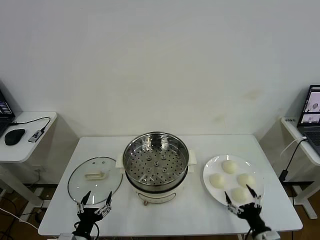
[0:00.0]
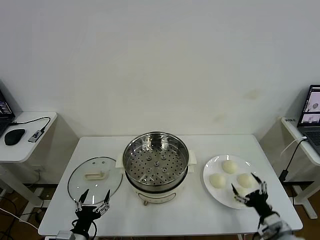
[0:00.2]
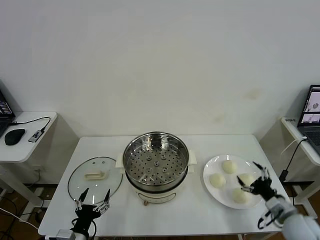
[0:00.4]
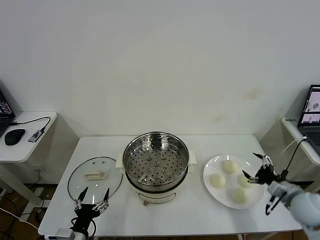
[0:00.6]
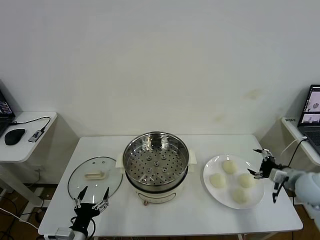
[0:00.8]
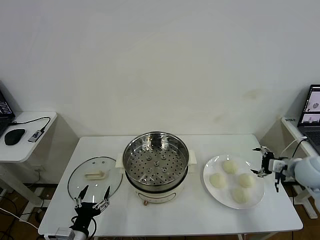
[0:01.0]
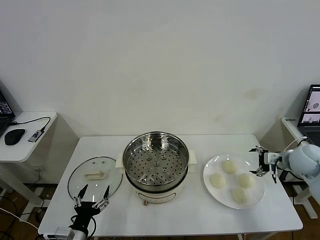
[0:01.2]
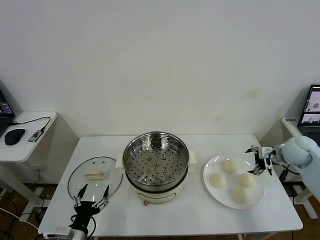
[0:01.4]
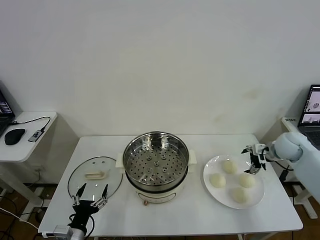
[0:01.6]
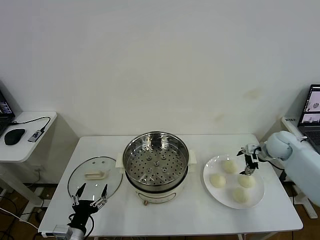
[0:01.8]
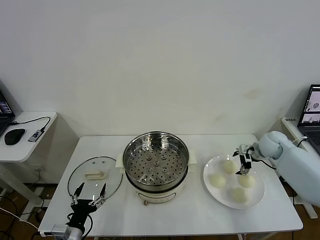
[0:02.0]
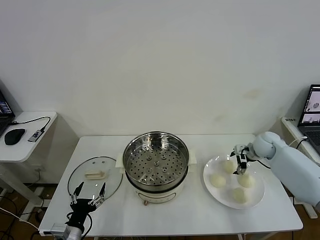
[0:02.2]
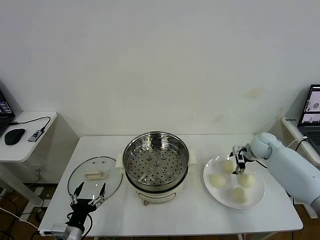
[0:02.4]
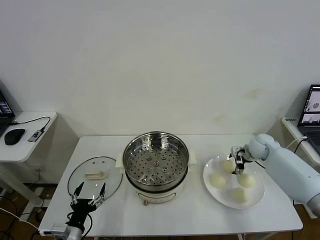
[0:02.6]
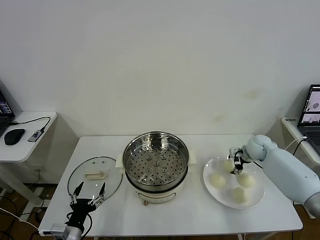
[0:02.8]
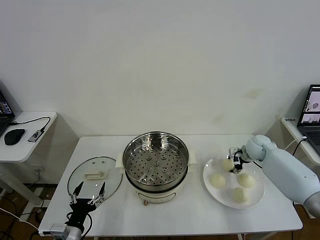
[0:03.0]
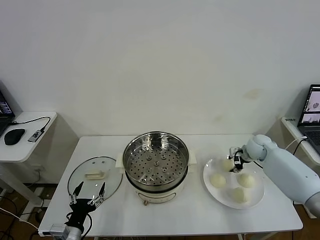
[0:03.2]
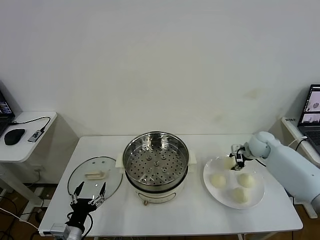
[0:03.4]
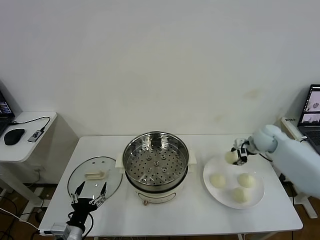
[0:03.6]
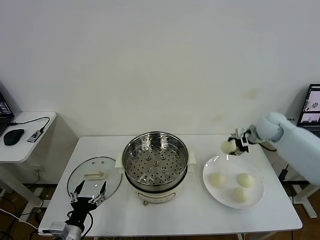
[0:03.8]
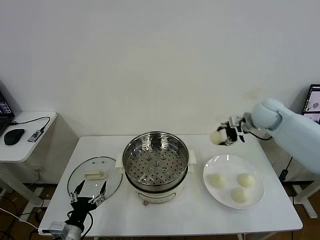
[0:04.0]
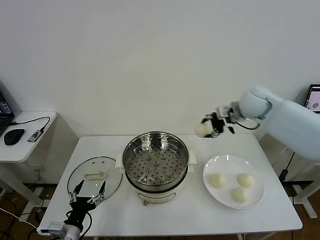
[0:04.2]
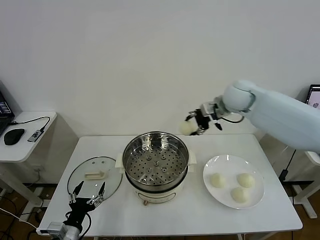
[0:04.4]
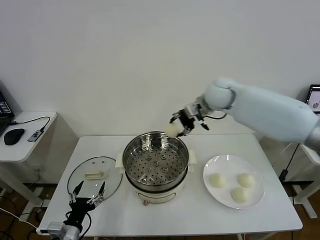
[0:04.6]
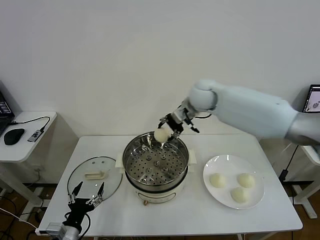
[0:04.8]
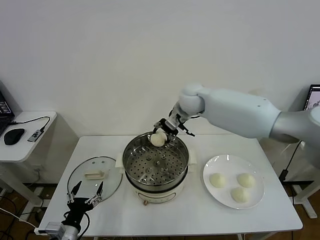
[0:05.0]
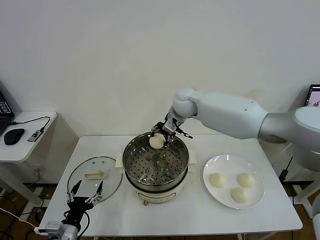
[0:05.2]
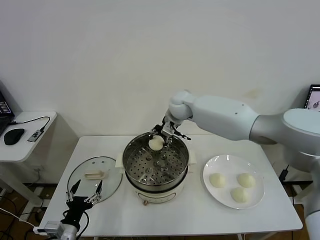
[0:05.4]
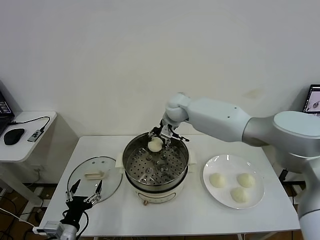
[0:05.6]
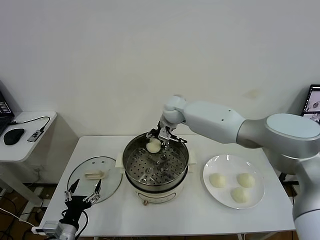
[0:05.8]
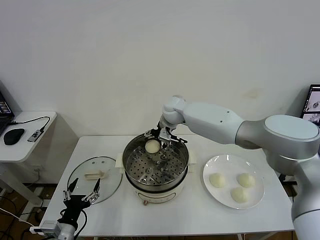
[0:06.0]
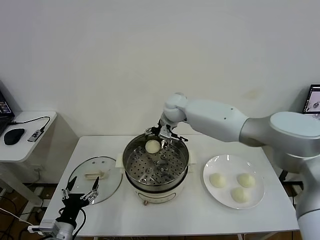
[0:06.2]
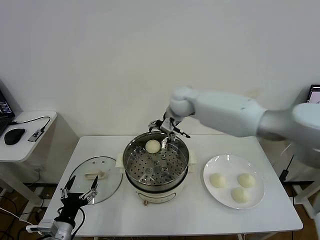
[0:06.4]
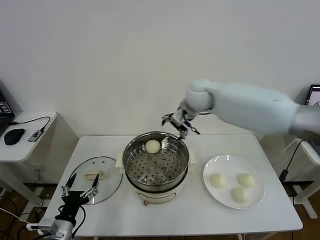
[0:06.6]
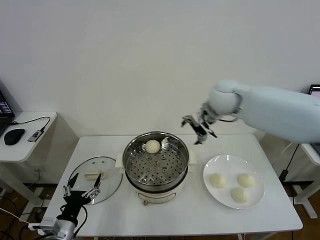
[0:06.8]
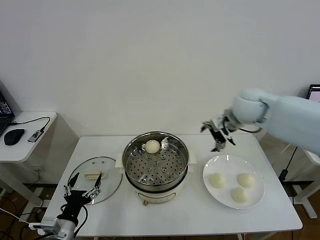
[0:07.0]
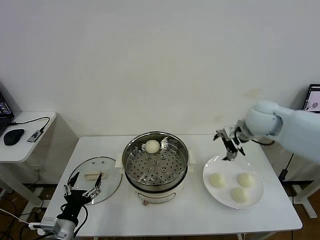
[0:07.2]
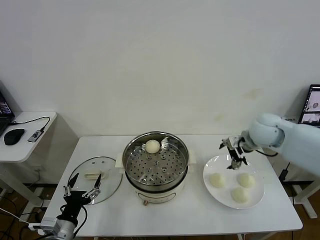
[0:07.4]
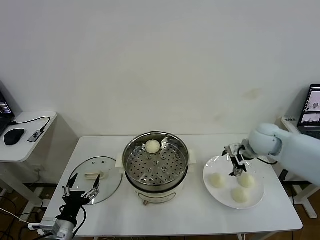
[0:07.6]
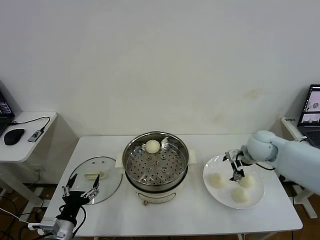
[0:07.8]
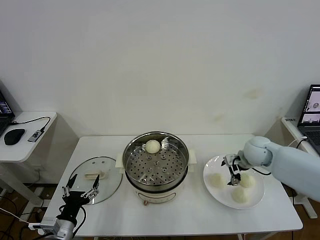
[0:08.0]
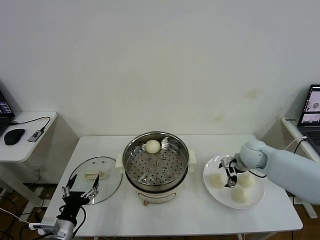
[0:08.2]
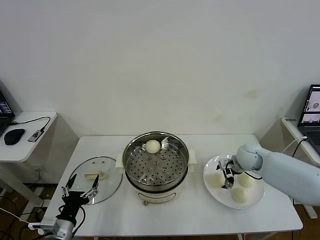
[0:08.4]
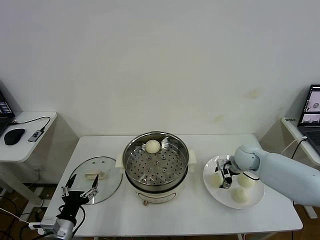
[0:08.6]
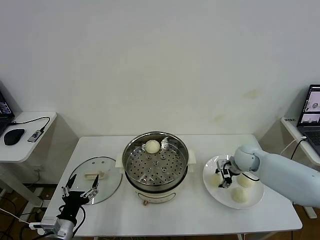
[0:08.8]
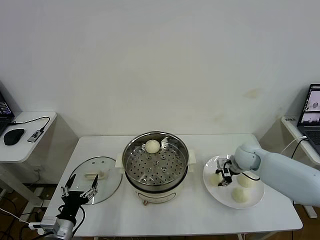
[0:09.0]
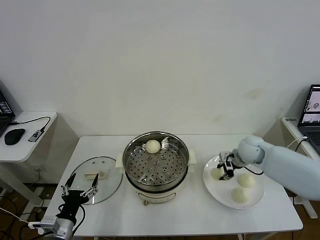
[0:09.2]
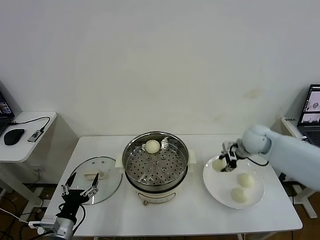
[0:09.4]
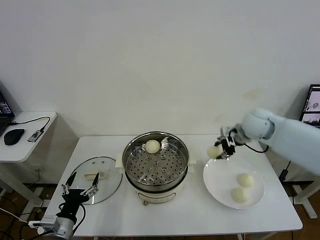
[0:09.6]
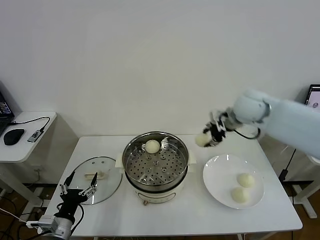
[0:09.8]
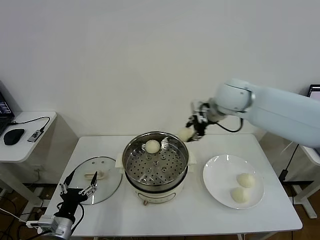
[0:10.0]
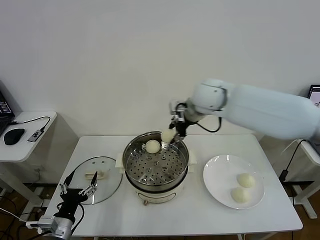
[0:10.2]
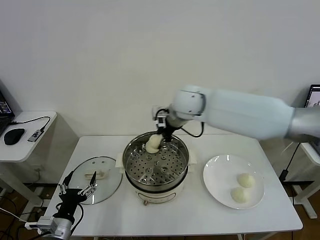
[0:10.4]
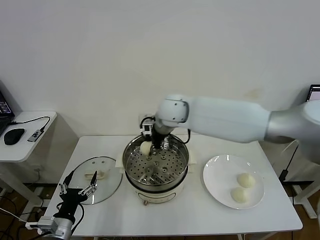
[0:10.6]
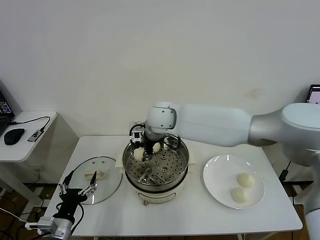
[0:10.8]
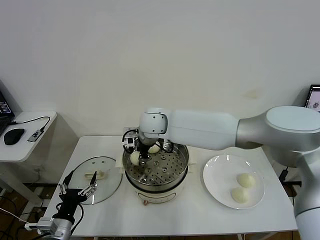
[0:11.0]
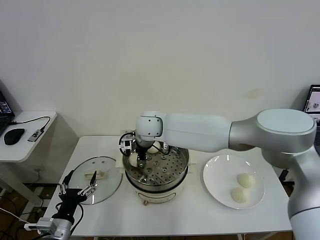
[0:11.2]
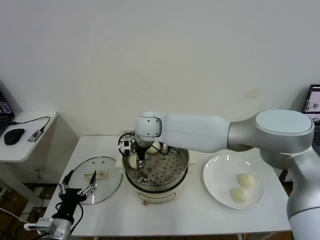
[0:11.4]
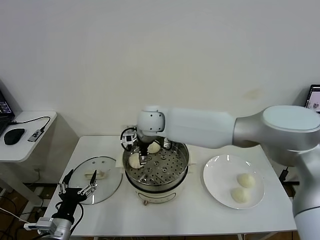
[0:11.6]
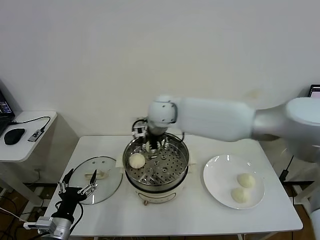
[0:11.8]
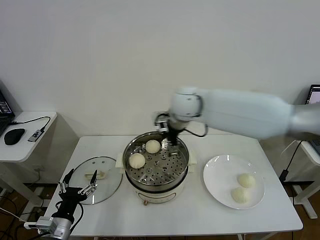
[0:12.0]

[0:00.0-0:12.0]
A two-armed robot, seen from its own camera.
Task of the whole recording: take steamed baozi put them in steamer then cover it.
Step, 0.0 to 3.2 s: Grasp the baozi in the plate with right gripper.
Step, 3.4 to 6.2 s: Place the baozi on the steamer with right gripper.
Step, 6.4 to 9.0 s: Grasp the baozi in the plate with right gripper.
Step, 9.4 to 11.6 s: Place the baozi on the steamer with right gripper.
1.6 to 3.0 s: The right gripper heads downward, covering roughly 5 cm, and closes.
3.0 to 4.4 s: The right gripper moves upward and to the left, some 30 cm.
4.4 to 6.0 s: The right gripper goes some 20 cm to the left and downward, and opens up.
6.0 to 7.6 s: The right gripper goes some 30 cm to the right and backward.
7.6 to 9.0 s: The right gripper travels downward by about 10 cm, and closes its fingers.
9.0 to 10.4 s: The right gripper is displaced to the left and upward by roughly 35 cm.
10.4 to 12.0 s: The right gripper moves about 10 cm to the left and comes back, and opens up.

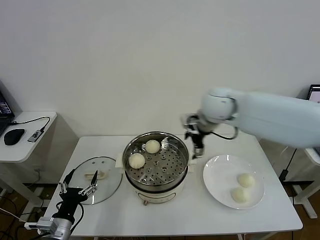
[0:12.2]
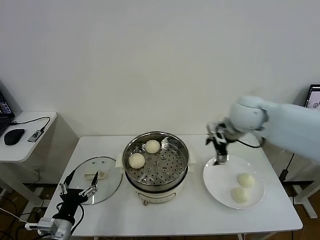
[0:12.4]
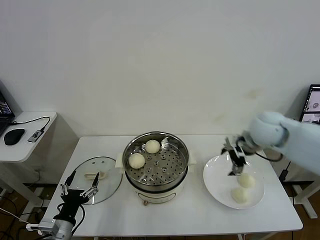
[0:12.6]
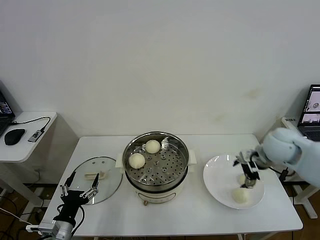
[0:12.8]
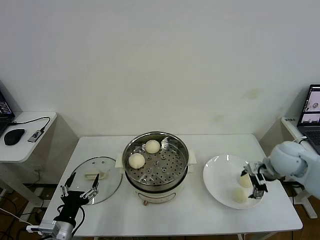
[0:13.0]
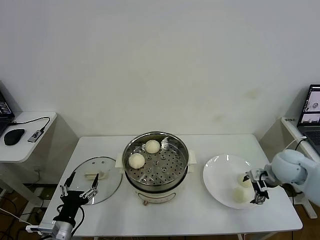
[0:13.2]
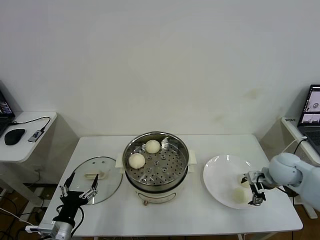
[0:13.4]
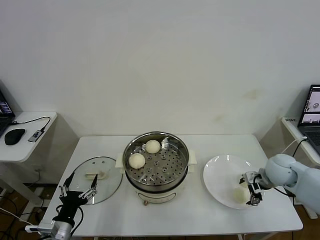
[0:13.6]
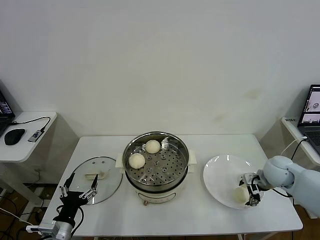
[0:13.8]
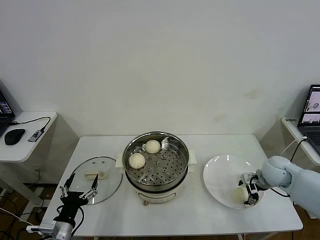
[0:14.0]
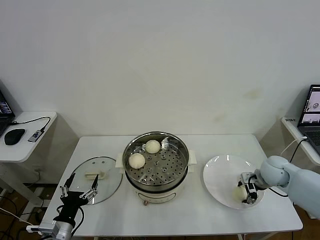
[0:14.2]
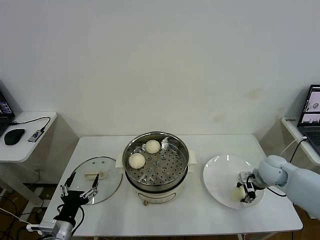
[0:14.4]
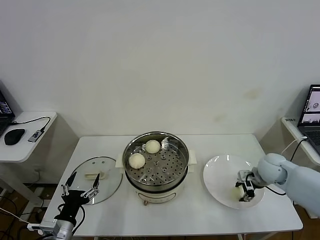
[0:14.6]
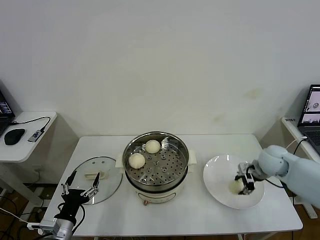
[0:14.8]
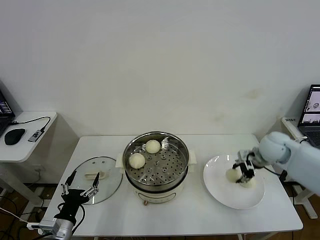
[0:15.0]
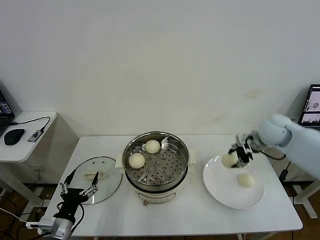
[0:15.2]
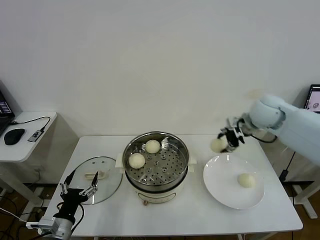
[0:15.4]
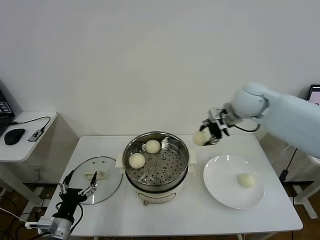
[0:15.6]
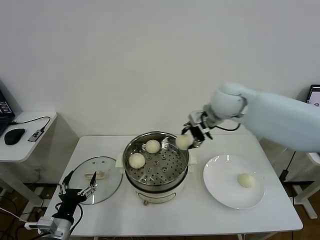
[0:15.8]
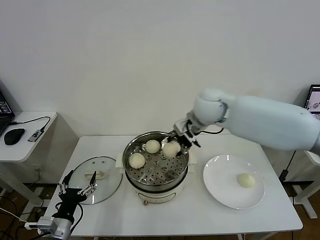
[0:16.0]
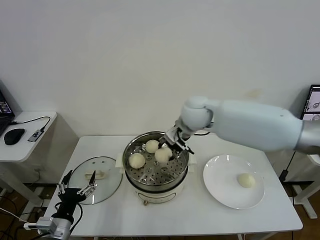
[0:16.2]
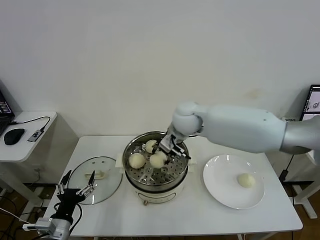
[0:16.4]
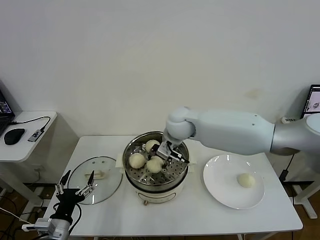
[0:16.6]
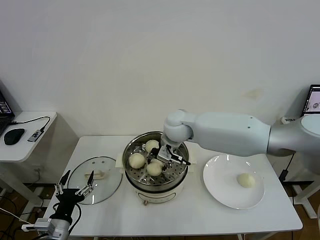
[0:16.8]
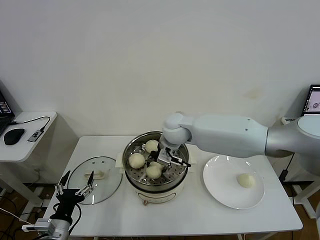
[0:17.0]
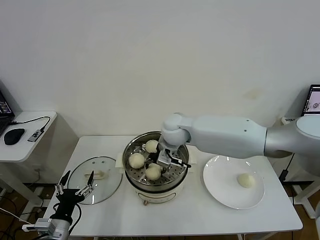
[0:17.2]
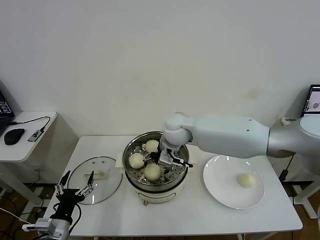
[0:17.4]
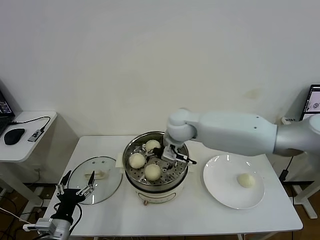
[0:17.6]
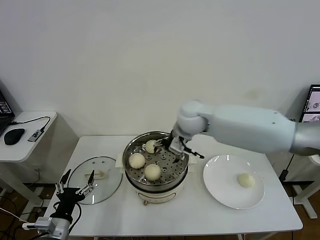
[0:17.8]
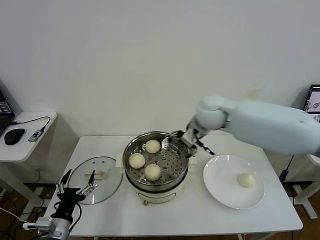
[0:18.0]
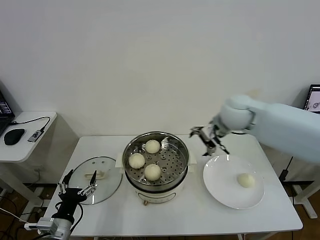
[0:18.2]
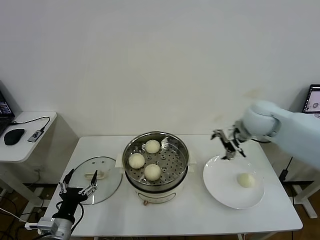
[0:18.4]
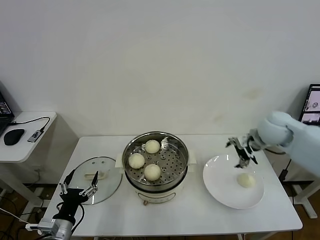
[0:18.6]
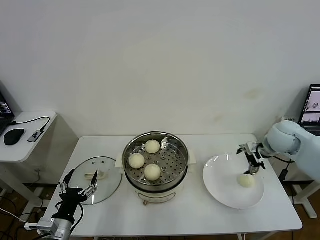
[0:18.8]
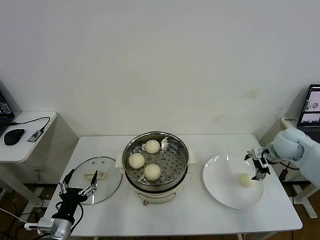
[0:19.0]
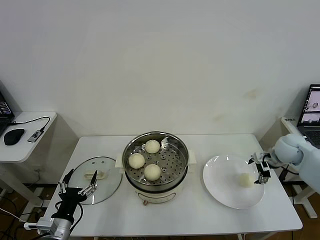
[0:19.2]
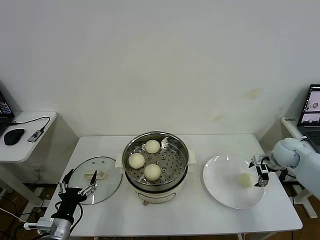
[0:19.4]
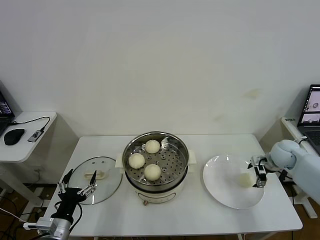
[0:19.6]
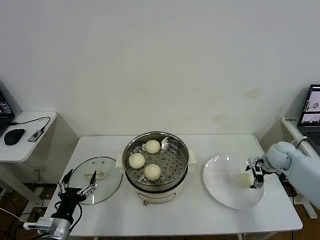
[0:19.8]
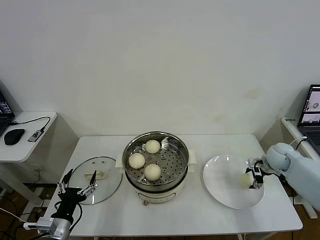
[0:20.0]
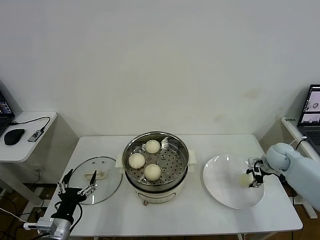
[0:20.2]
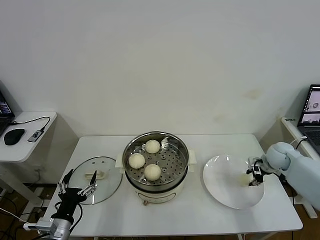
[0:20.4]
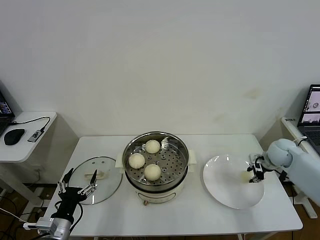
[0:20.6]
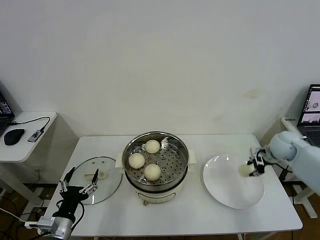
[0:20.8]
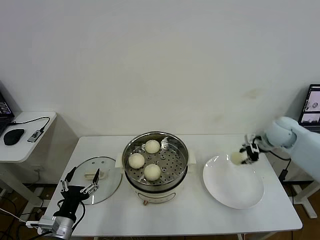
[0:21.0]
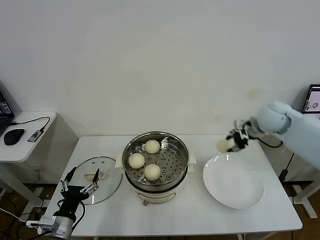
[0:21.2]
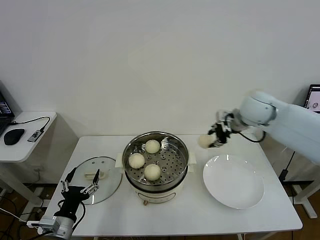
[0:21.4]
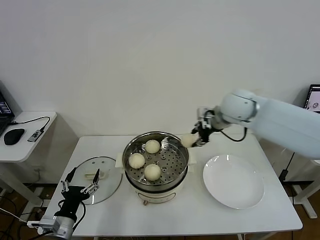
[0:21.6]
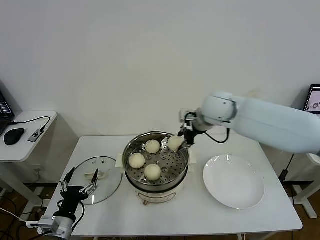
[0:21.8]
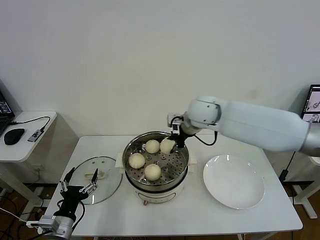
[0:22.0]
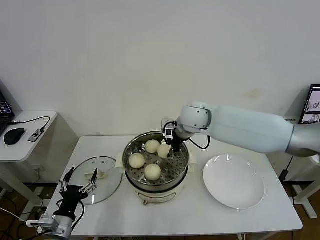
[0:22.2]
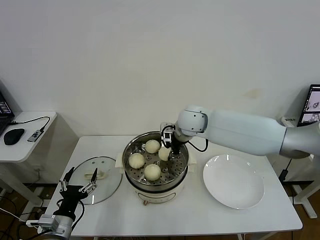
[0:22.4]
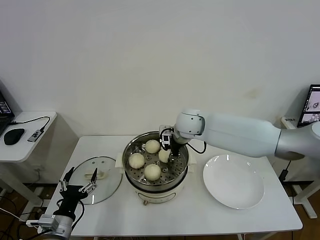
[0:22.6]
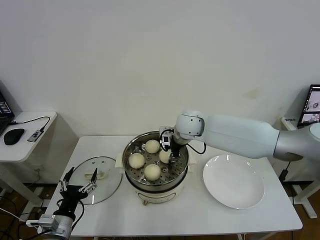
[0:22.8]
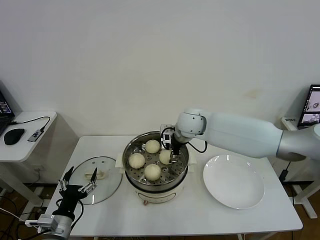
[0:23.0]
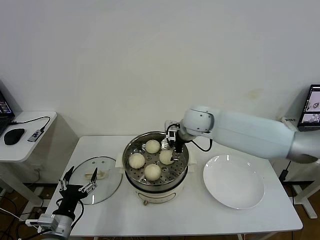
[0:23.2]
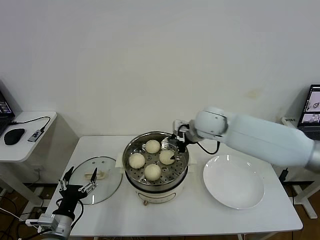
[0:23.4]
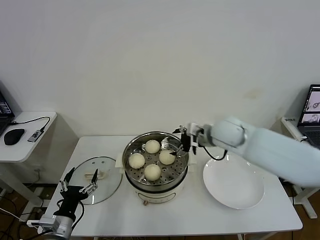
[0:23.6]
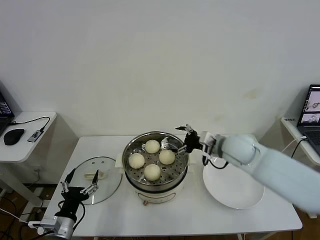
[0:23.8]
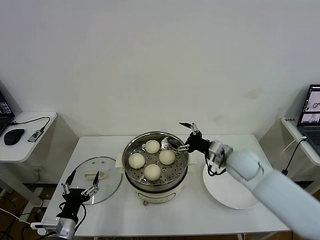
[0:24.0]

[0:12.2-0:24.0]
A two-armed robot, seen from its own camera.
Task of the whole recording: take steamed baozi put them in steamer then cover it.
Step, 12.2 to 14.6 s: Grasp the baozi in the plate with right gripper.
Step, 14.8 to 17.6 s: Place the baozi on the steamer with right gripper.
Step, 17.8 to 20.6 s: Grasp the baozi in the plate with right gripper.
Step, 20.8 to 23.2 s: Place the baozi on the steamer with right gripper.
12.2 to 13.6 s: The right gripper heads to the right, downward and backward, covering approximately 30 cm.
13.6 to 15.2 s: The right gripper travels upward and forward by approximately 15 cm, and closes up.
15.2 to 16.6 s: The right gripper moves to the left, about 30 cm.
16.6 to 18.2 s: The right gripper heads to the right, covering roughly 15 cm, and opens up.
18.2 to 19.6 s: The right gripper shifts approximately 30 cm to the right and downward.
19.6 to 21.0 s: The right gripper goes roughly 10 cm upward, and closes its fingers.
21.0 to 22.6 s: The right gripper goes some 30 cm to the left.
22.6 to 24.0 s: The right gripper travels to the right, backward and downward by roughly 20 cm, and opens up.
